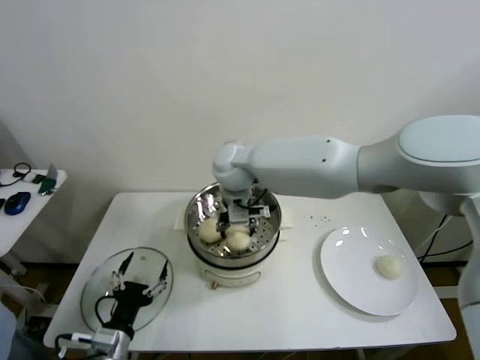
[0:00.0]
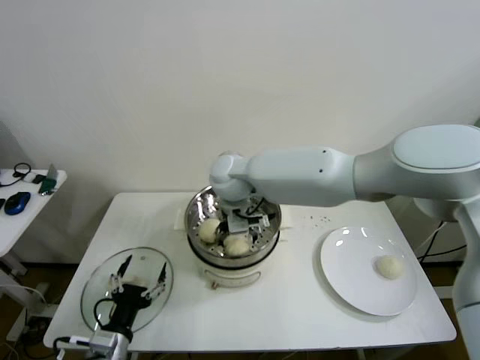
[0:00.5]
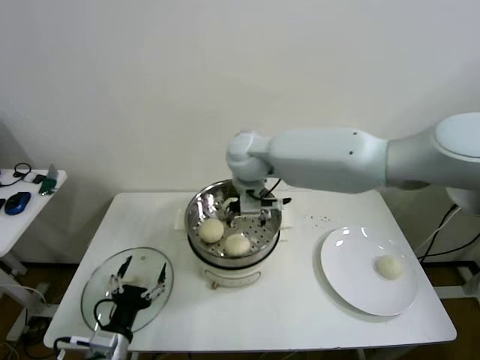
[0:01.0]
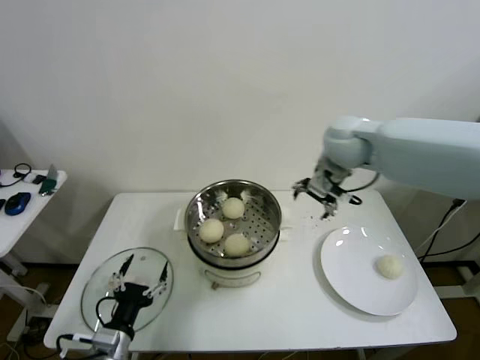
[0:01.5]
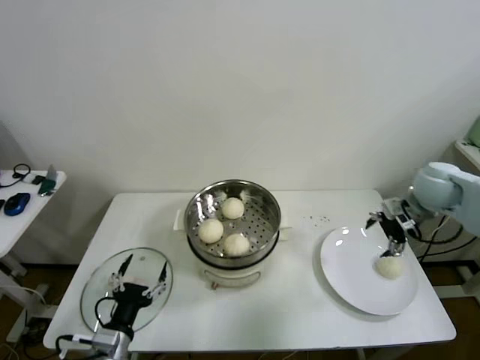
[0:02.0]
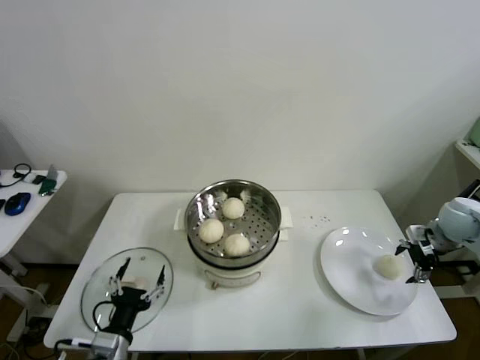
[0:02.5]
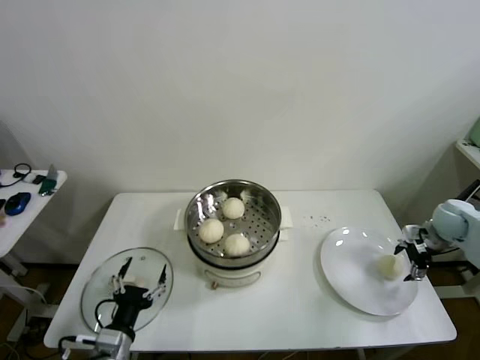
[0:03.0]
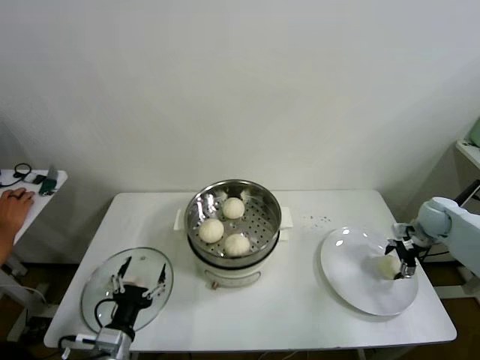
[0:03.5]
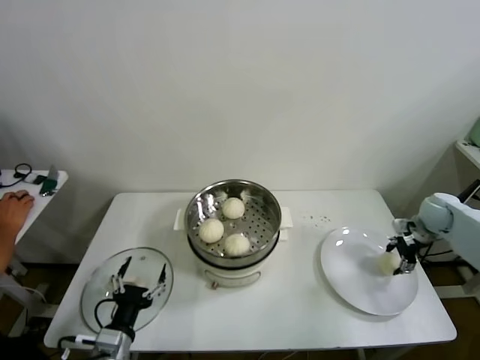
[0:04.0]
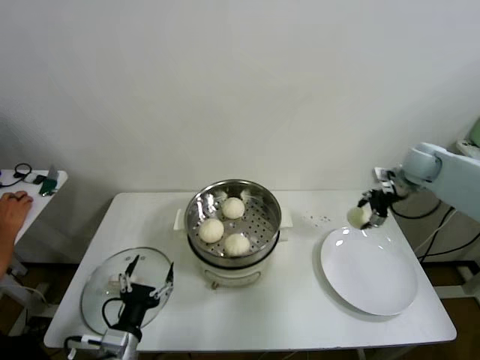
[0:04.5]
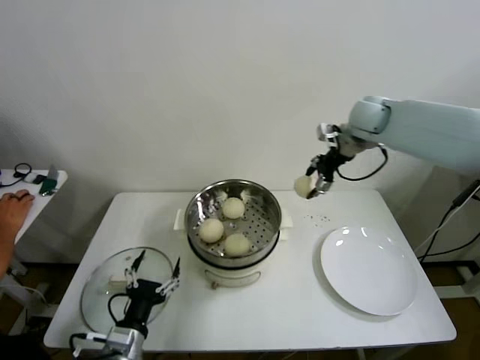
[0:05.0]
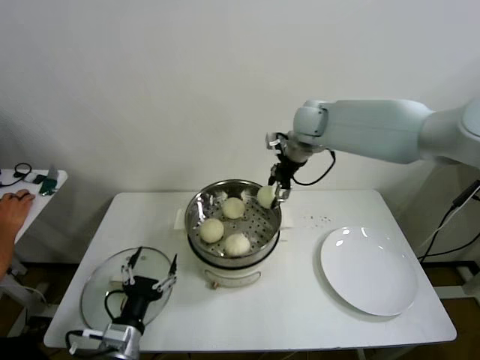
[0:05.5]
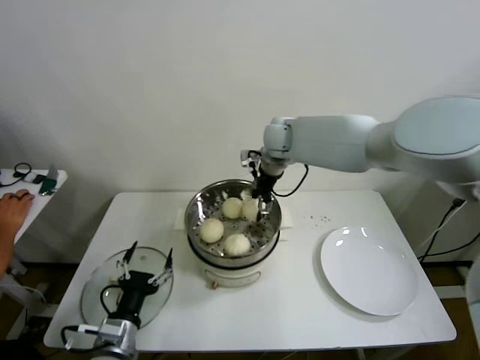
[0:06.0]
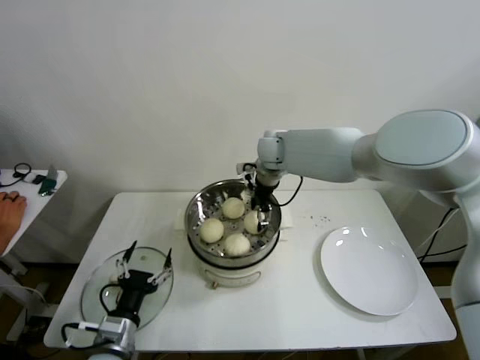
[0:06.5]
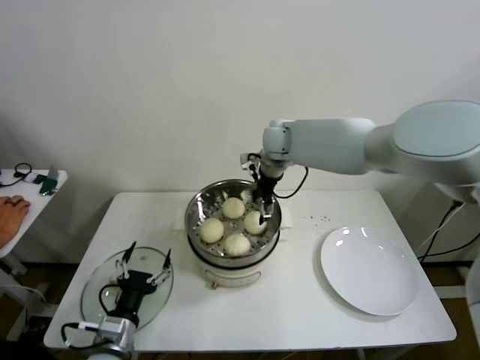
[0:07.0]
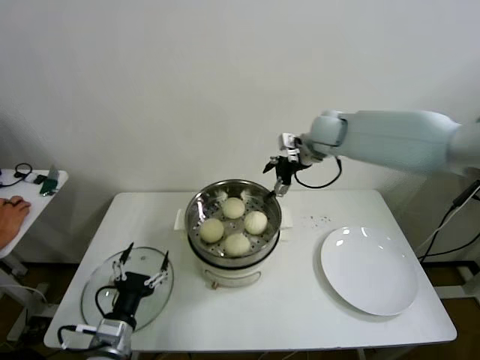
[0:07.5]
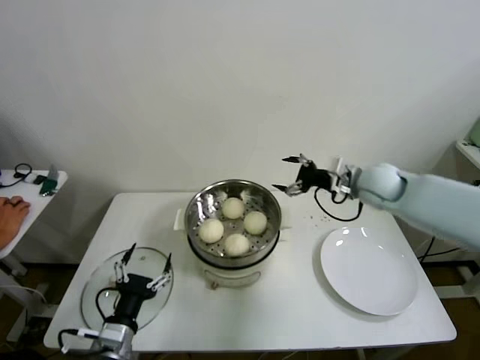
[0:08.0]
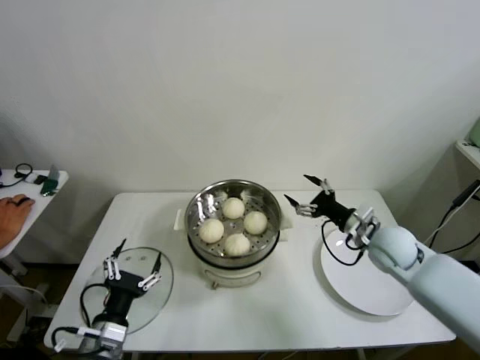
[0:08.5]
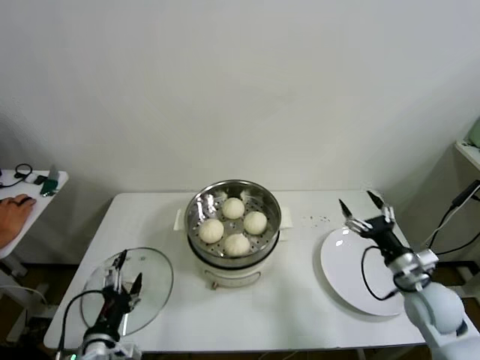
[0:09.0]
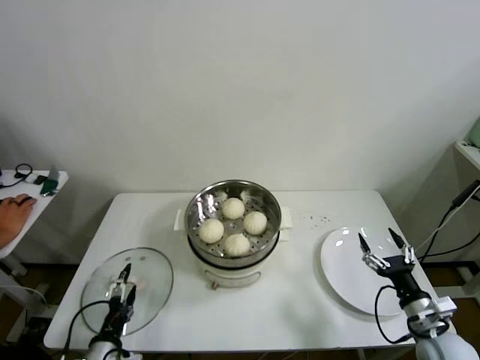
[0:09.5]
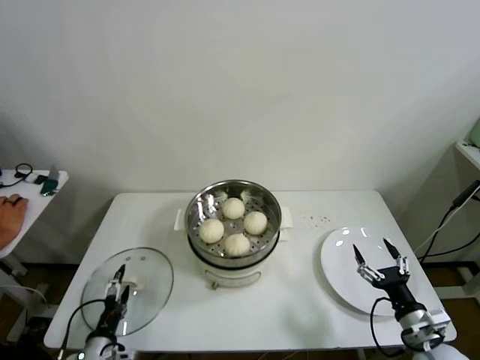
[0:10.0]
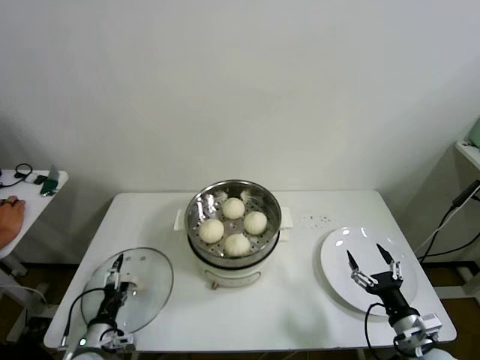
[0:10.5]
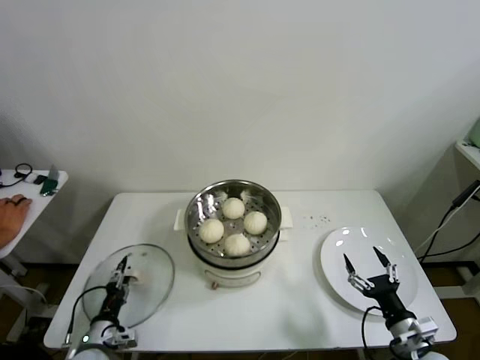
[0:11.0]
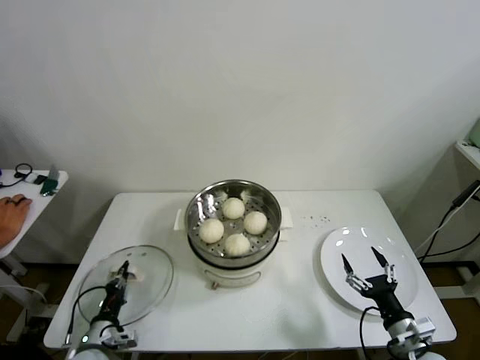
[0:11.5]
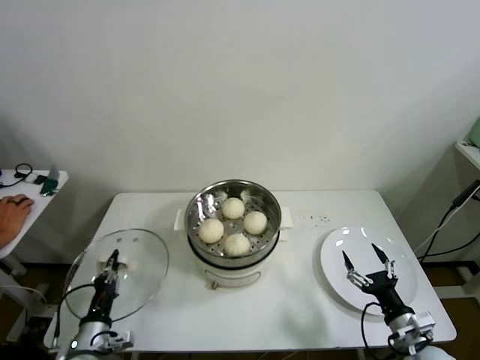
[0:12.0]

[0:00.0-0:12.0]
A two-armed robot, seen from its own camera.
Step, 0:00.5 to 0:03.5: Grasp the baozi in the plate with right gripper.
Step, 0:04.0 to 0:06.0: Place the baozi on the steamer with right gripper.
Step, 0:06.5 to 0:11.0: Grasp the pot lid with left gripper.
0:00.0 to 0:02.0: The right gripper goes about 40 cm to the right, and opens up.
0:02.0 to 0:04.0: The right gripper shifts about 15 cm downward and to the right, and closes its fingers.
0:04.0 to 0:06.0: The right gripper travels to the left and upward by approximately 40 cm.
0:06.0 to 0:08.0: The right gripper goes roughly 25 cm to the right and backward, and opens up.
0:08.0 to 0:10.0: The left gripper heads downward and to the left, covering approximately 10 cm. Meanwhile the right gripper goes some 35 cm backward and downward.
0:10.0 to 0:12.0: The left gripper closes up.

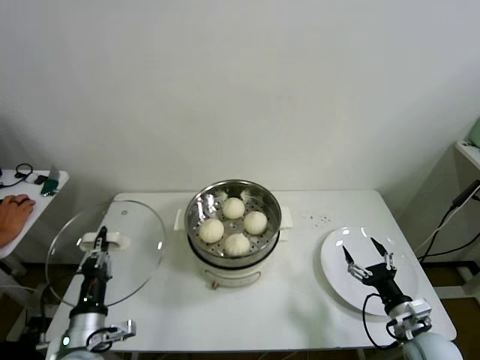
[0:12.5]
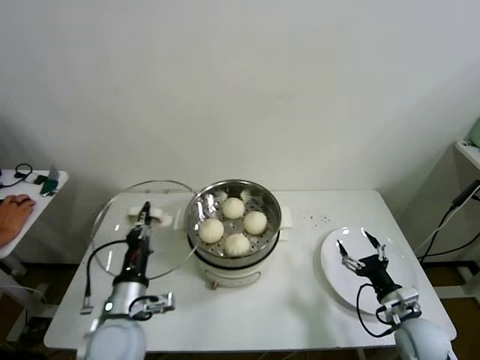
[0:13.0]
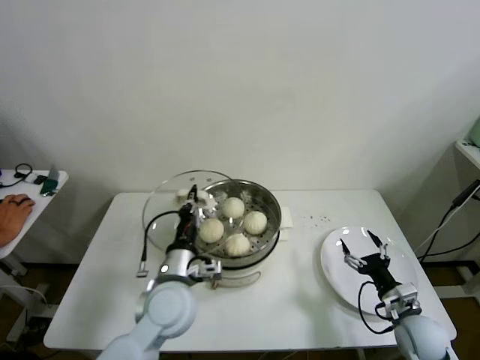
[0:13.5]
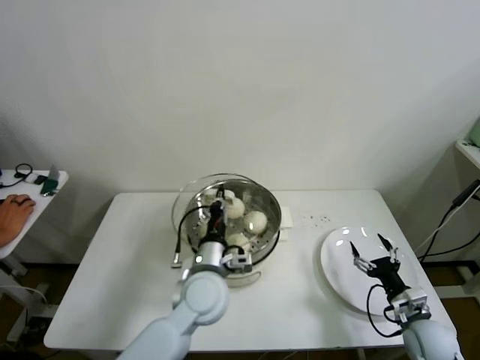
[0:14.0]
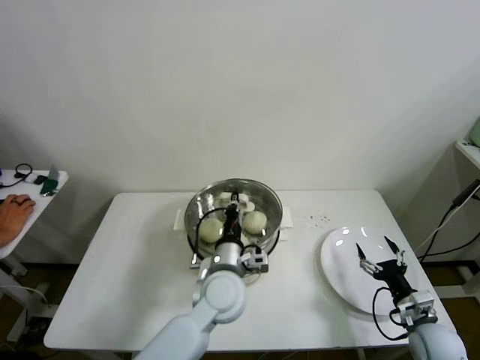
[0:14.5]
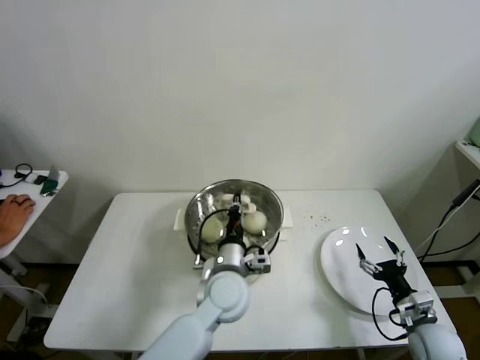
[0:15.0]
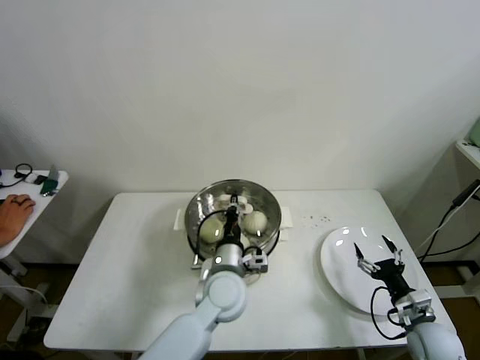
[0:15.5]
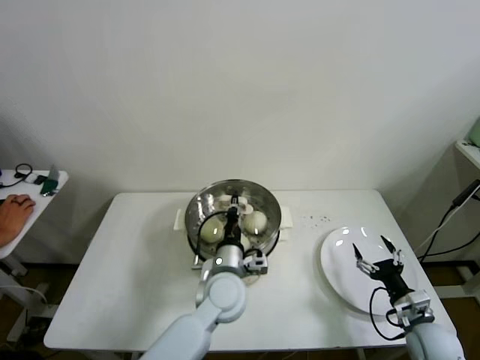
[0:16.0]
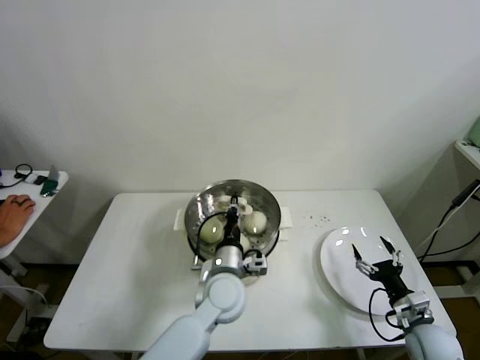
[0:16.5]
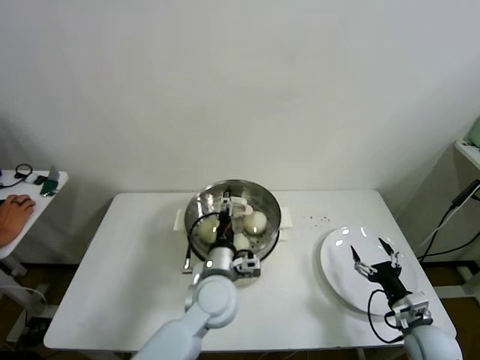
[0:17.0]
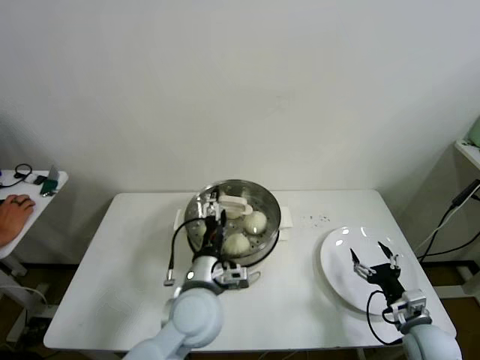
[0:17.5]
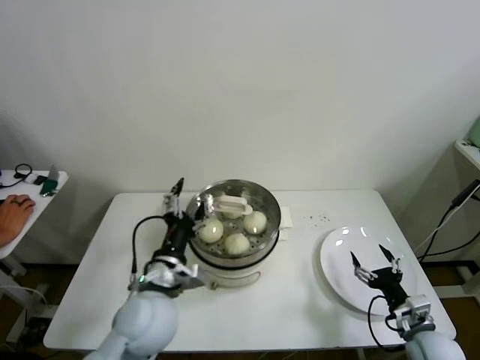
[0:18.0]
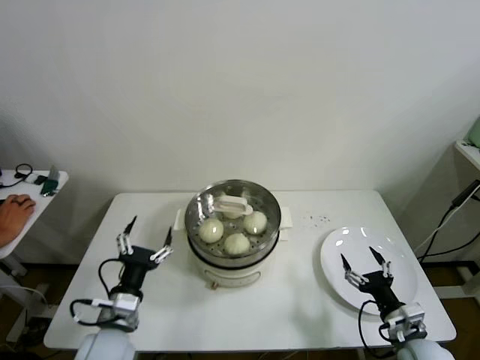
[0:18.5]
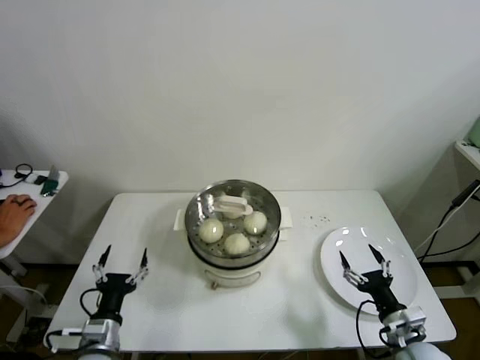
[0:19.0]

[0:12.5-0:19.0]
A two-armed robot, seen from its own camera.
Step, 0:12.5 to 0:16.5: Place the pot lid on the steamer with left gripper.
0:12.5 to 0:14.5: The left gripper shifts approximately 30 cm to the right and forward.
0:14.5 to 0:17.0: The left gripper opens.
0:17.0 to 0:19.0: The right gripper changes place by some 5 cm. Meanwhile the left gripper shifts approximately 25 cm to the left and backward, and opens up.

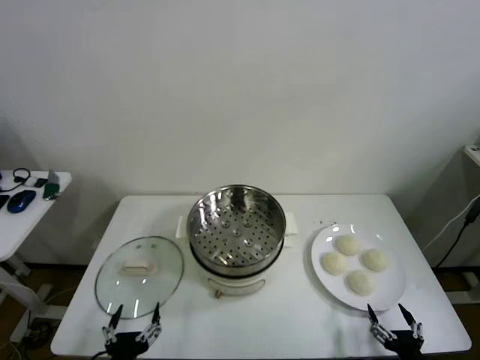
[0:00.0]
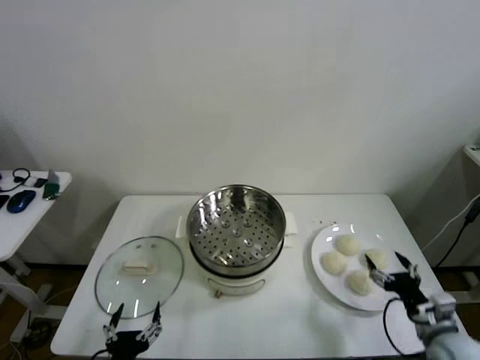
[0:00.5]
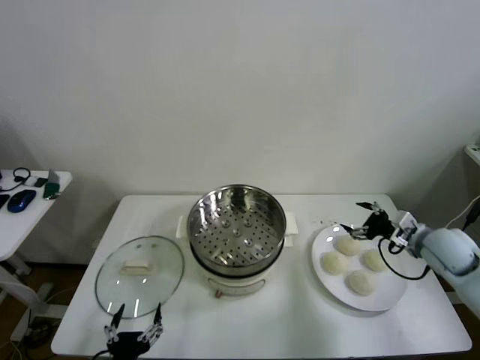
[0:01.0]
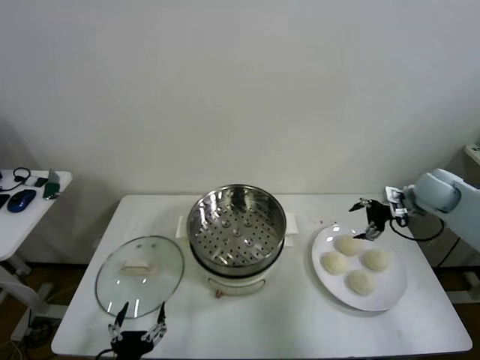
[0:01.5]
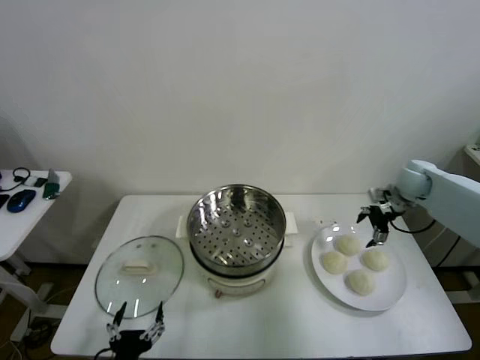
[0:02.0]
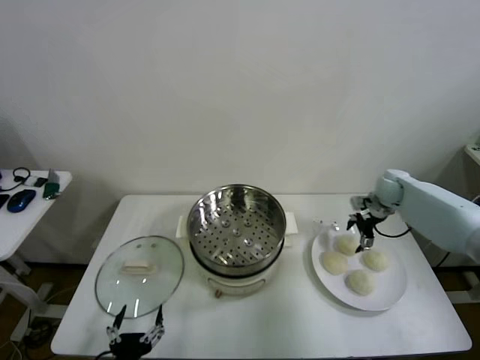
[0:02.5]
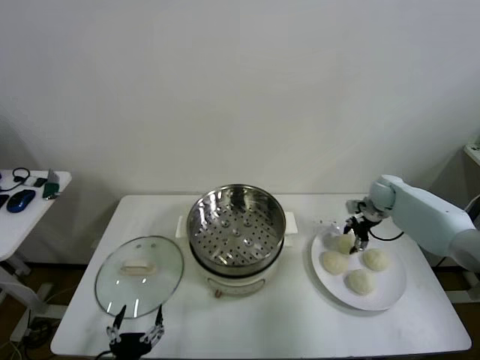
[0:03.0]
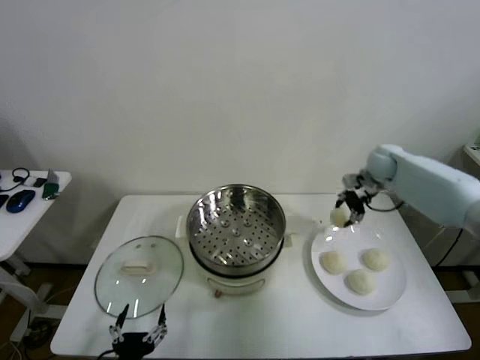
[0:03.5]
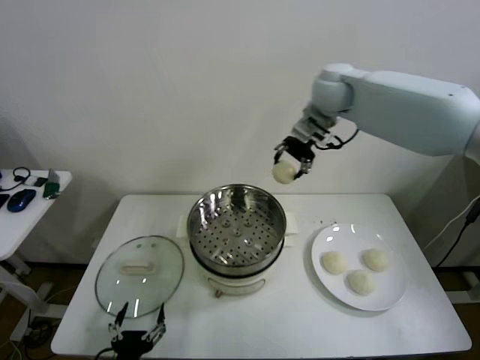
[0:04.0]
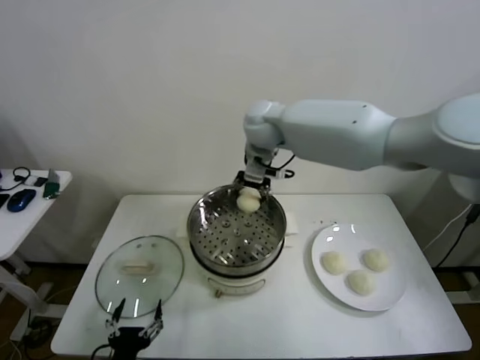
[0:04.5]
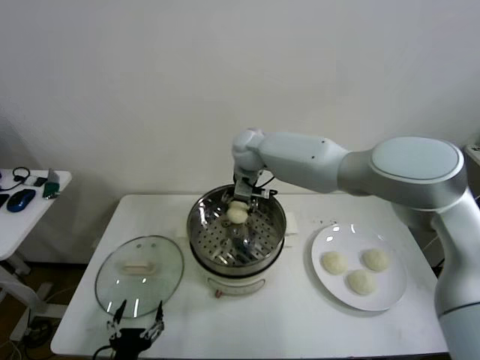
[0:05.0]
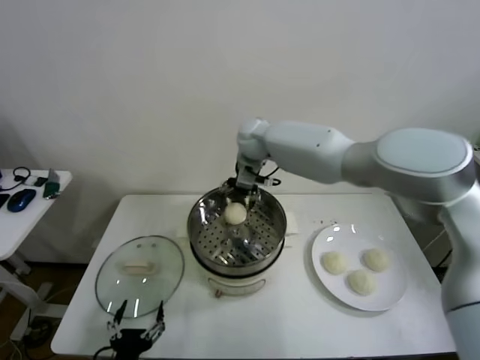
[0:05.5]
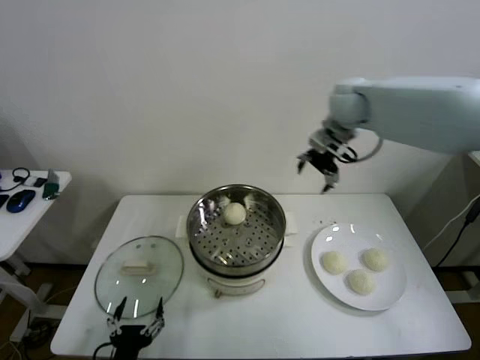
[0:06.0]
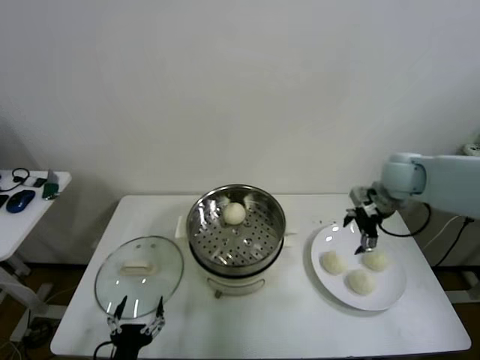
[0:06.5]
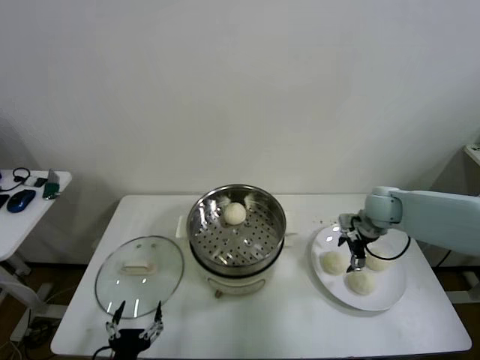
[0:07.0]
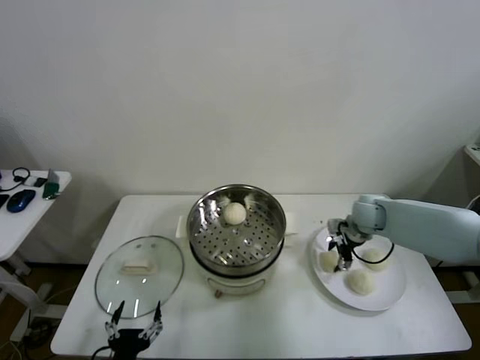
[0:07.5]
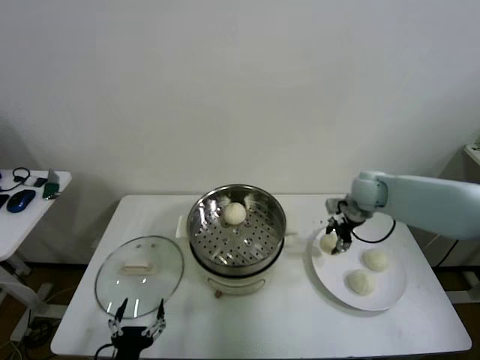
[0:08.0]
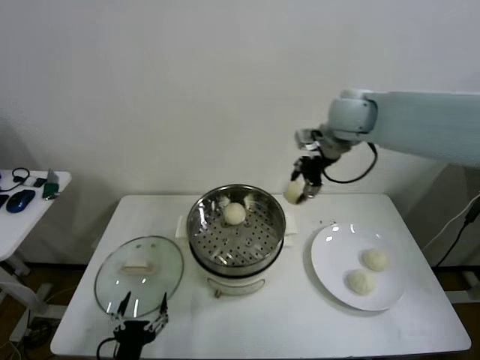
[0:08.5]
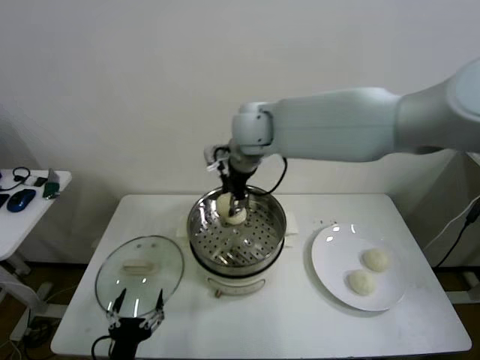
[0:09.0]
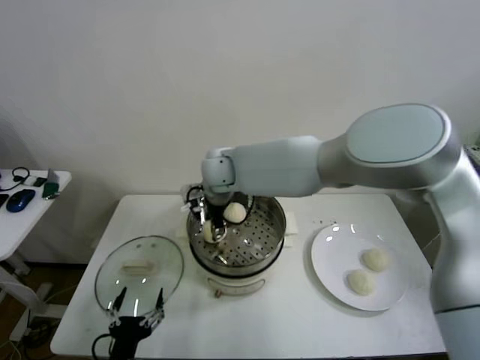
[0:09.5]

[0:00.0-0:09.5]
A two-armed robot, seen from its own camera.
Step, 0:00.0 to 0:02.5: Grasp the baozi in the plate with right gripper.
Step, 0:03.5 to 0:05.0: Place the baozi on the steamer with right gripper.
Step, 0:05.5 to 0:07.5: Grasp the baozi in the plate with right gripper.
0:02.0 to 0:04.0: The right gripper heads to the left and upward, covering some 35 cm, and closes up.
0:04.0 to 0:05.5: The right gripper goes some 15 cm downward and to the left, and opens its fingers.
0:05.5 to 0:07.5: The right gripper travels to the right and downward by some 35 cm, and closes its fingers.
0:07.5 to 0:09.5: The right gripper goes roughly 40 cm to the left.
